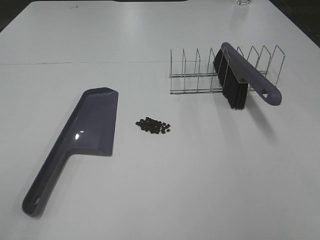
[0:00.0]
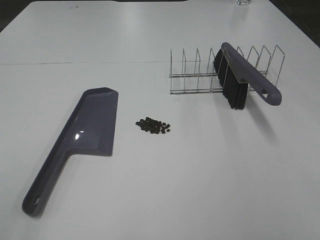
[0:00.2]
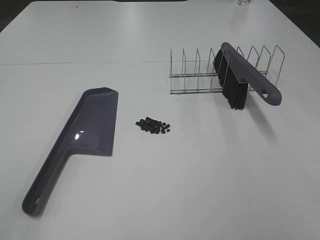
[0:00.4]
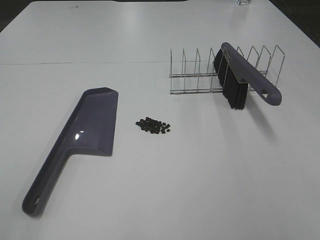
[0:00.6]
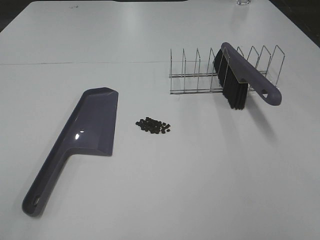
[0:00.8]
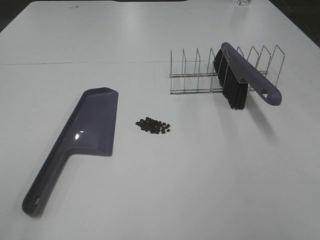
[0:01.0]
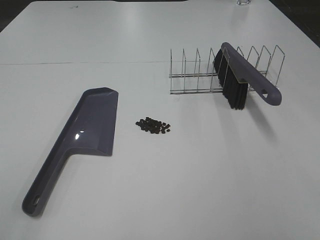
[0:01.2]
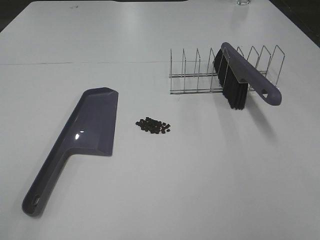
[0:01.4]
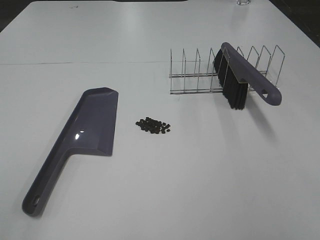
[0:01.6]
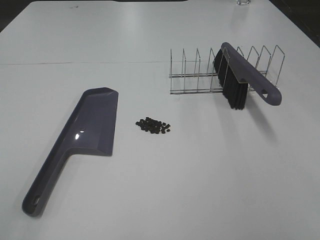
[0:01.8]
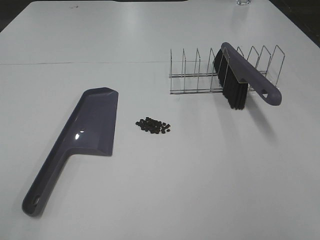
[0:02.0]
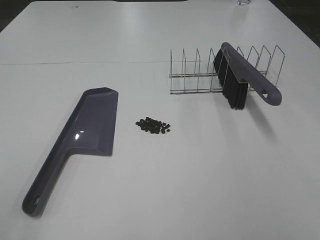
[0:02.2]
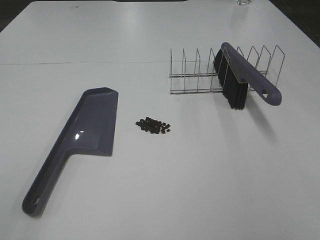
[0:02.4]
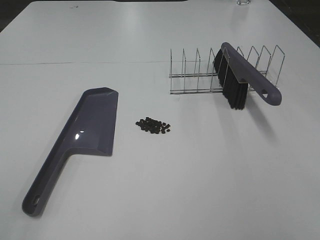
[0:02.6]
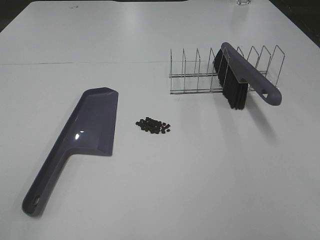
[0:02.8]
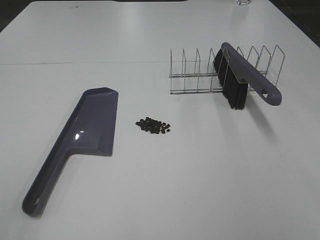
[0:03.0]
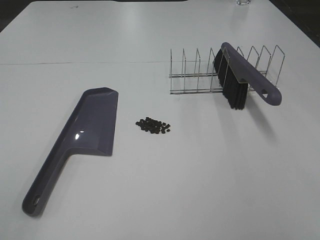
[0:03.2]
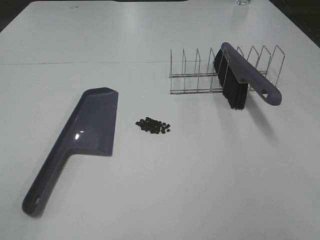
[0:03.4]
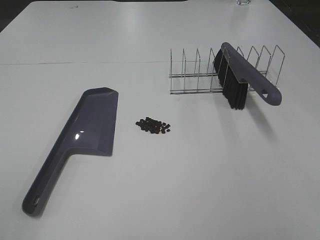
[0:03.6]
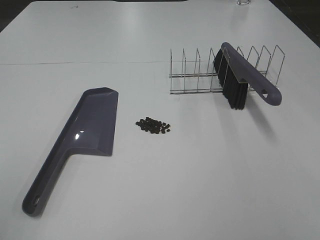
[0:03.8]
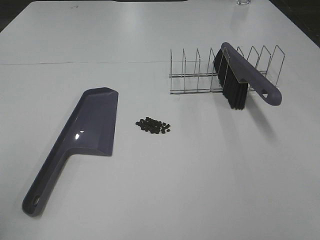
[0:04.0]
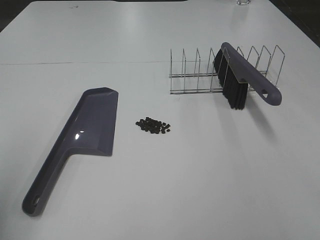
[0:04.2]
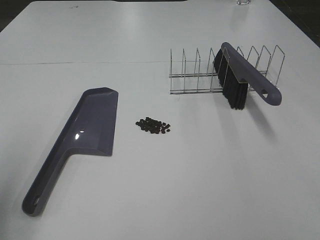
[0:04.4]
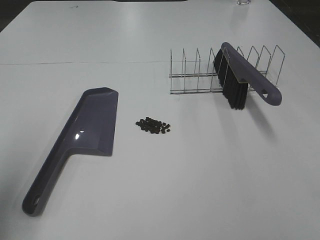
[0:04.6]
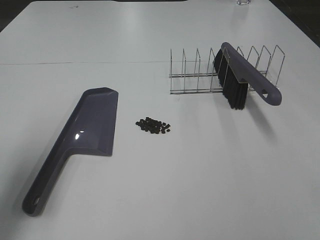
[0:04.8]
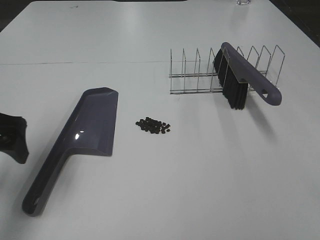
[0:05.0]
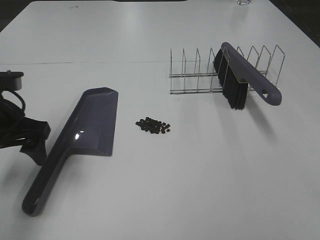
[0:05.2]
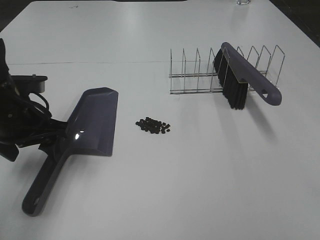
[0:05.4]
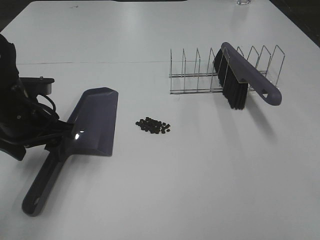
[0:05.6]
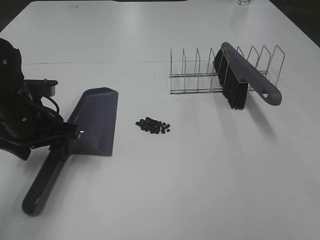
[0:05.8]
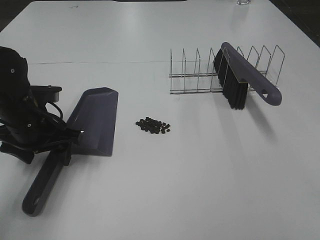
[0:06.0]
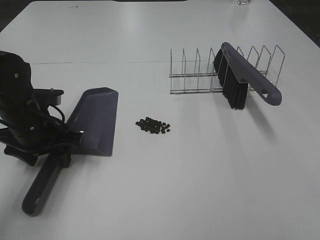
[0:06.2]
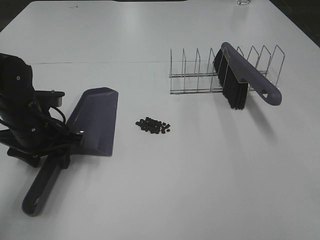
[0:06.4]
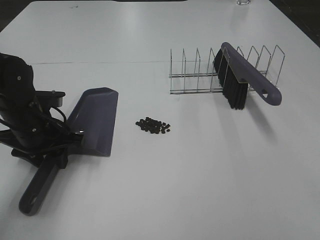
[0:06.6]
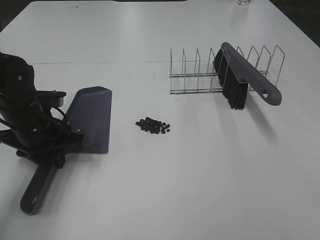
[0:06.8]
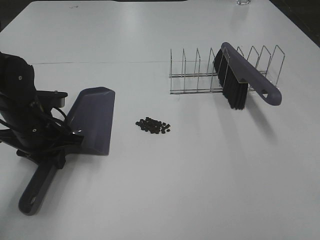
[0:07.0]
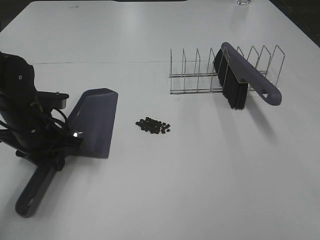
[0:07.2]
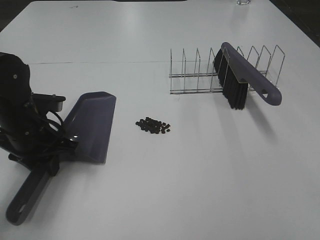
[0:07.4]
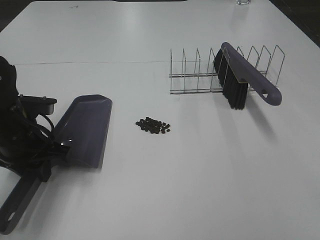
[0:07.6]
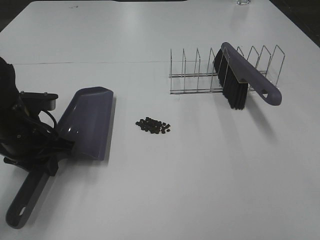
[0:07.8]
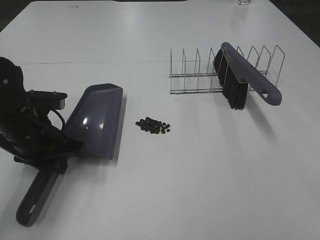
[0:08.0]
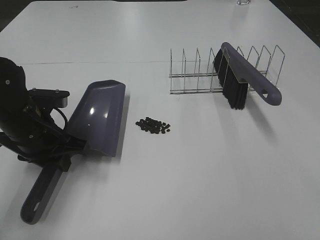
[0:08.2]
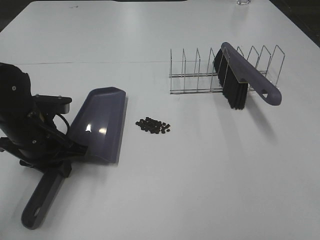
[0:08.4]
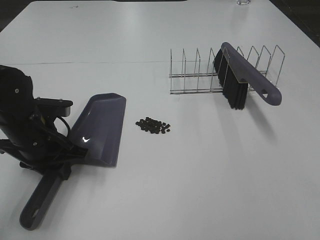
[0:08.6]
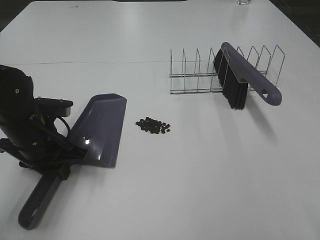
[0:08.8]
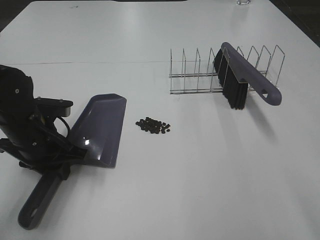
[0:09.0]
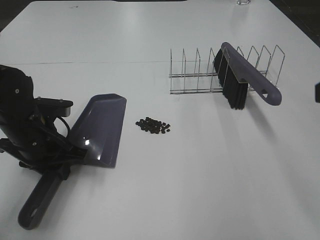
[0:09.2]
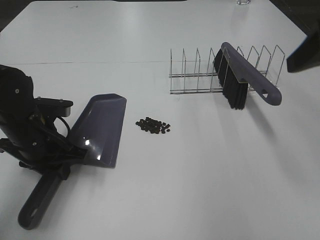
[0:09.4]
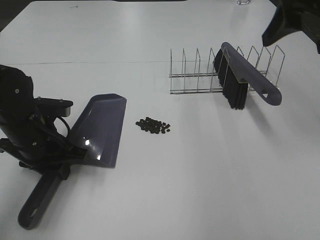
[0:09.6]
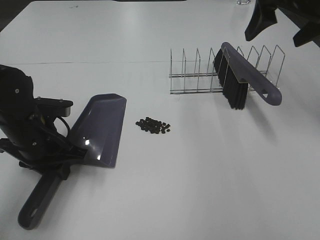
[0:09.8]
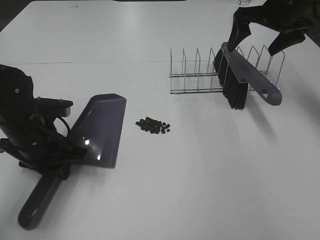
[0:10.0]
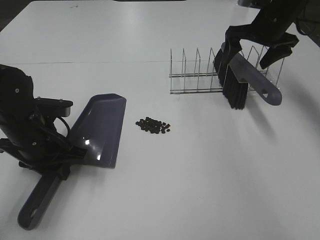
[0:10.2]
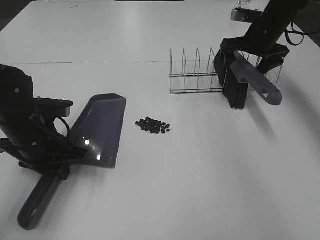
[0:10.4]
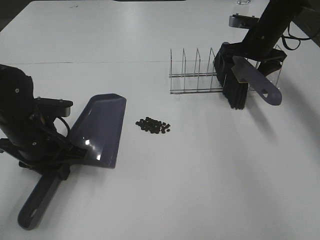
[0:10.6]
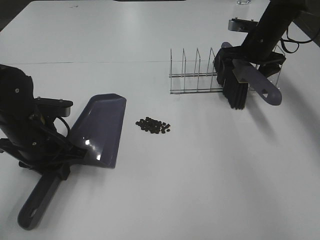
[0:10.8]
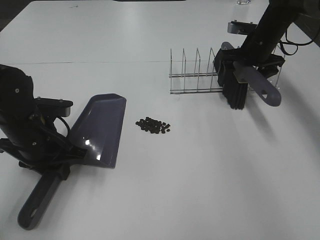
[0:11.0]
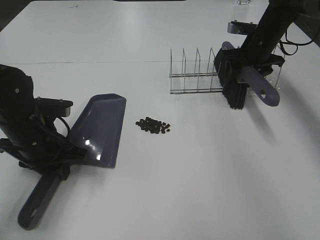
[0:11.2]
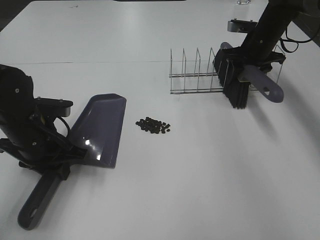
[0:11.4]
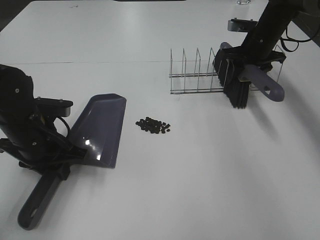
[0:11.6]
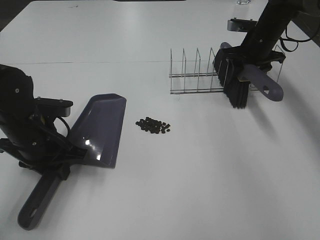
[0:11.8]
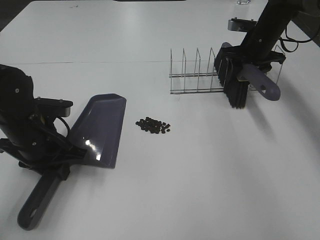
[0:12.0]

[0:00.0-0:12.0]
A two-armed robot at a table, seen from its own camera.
Task of the whole recording: Sweep Coffee Bean.
Step, 0:00.0 to 0:06.8: Left hand: grab the dustpan.
0:00.0 to 0:03.0: The two grippers keep their place.
0:03.0 to 0:04.4: The left gripper is displaced forward by roughly 15 cm.
0:04.4 to 0:06.0: The left gripper heads downward, forward and to the right, covering about 25 cm, and closes its fingers.
0:06.0 to 0:07.6: The left gripper closes its fingers.
0:07.6 to 0:09.0: The right gripper shifts roughly 10 cm forward, and opens its fingers.
0:09.0 to 0:10.4: The right gripper heads forward, covering about 40 cm.
0:10.4 to 0:12.0: The right gripper closes.

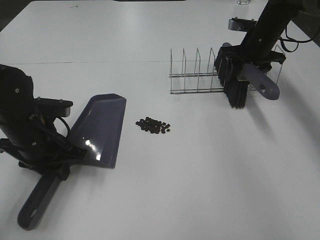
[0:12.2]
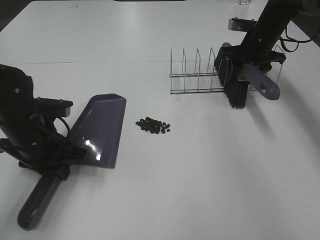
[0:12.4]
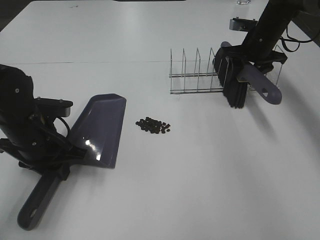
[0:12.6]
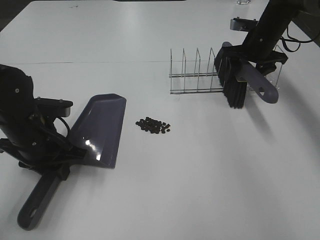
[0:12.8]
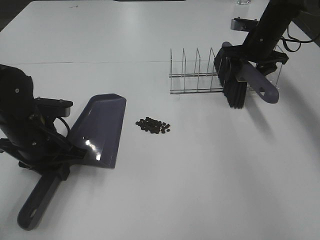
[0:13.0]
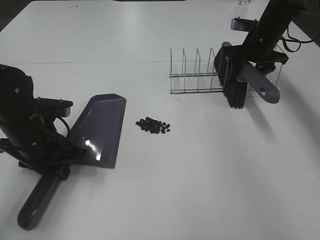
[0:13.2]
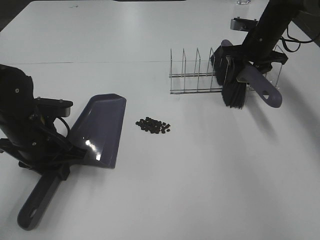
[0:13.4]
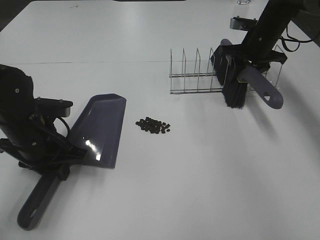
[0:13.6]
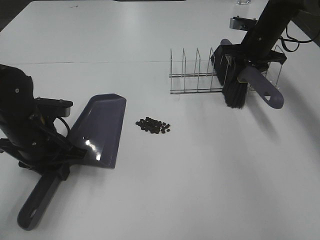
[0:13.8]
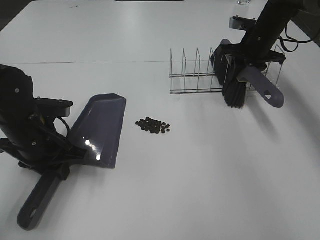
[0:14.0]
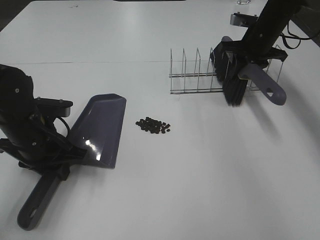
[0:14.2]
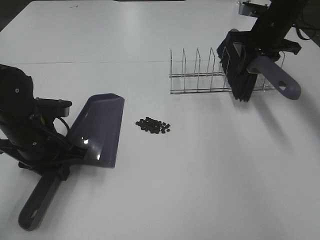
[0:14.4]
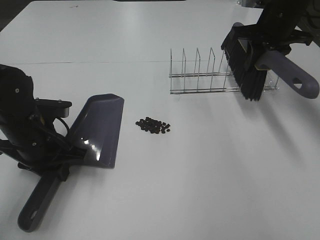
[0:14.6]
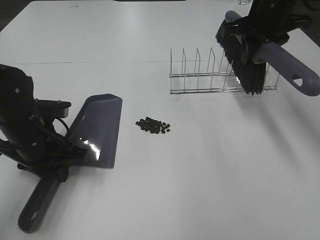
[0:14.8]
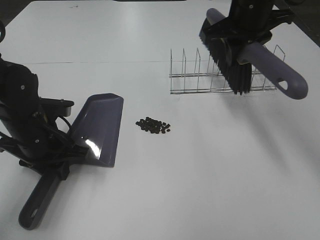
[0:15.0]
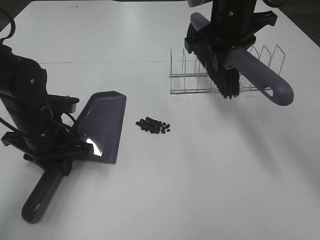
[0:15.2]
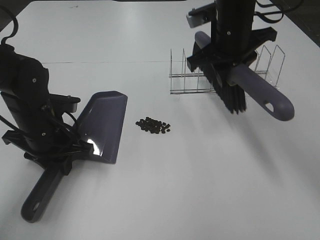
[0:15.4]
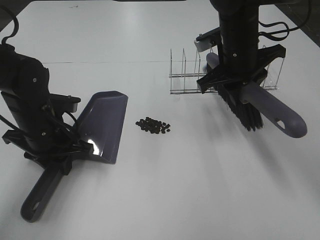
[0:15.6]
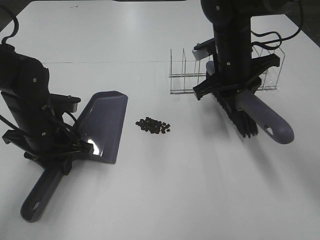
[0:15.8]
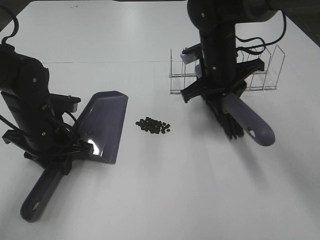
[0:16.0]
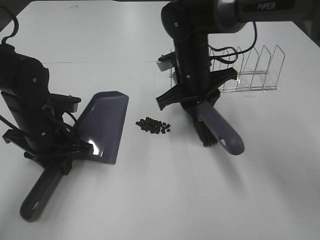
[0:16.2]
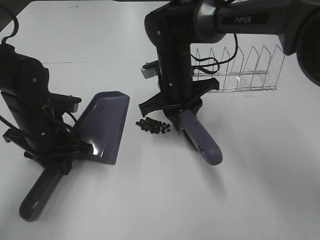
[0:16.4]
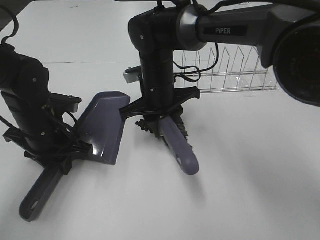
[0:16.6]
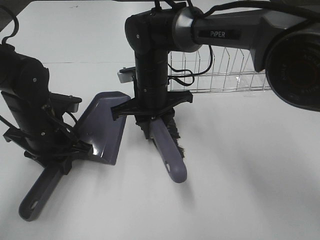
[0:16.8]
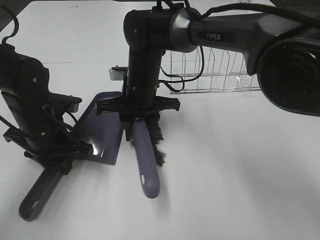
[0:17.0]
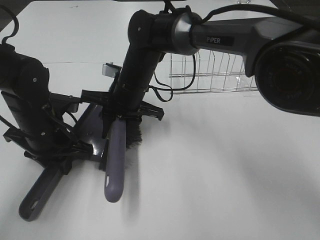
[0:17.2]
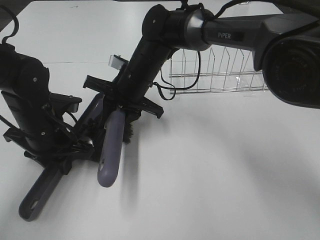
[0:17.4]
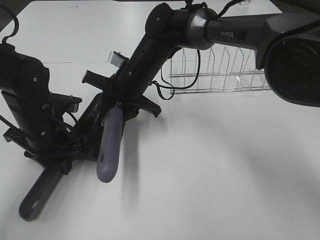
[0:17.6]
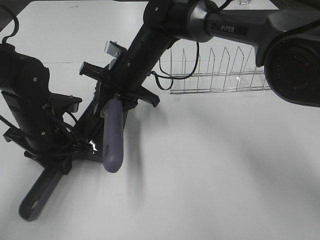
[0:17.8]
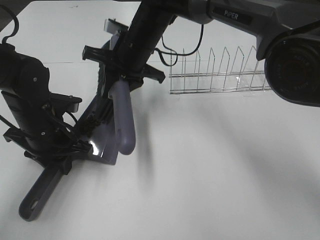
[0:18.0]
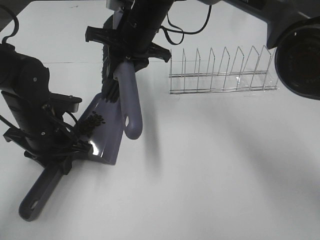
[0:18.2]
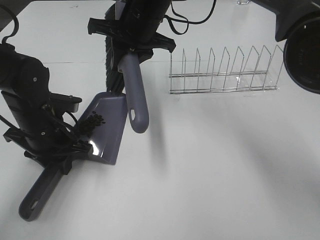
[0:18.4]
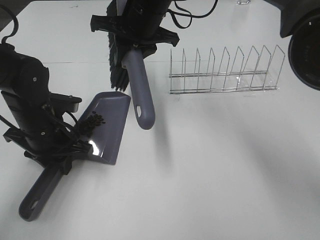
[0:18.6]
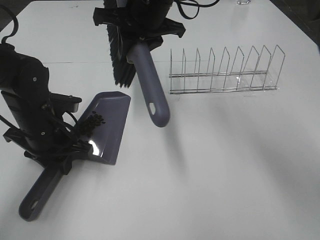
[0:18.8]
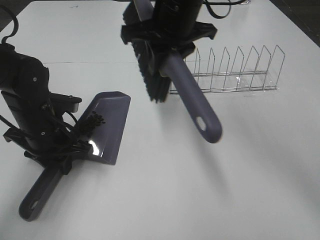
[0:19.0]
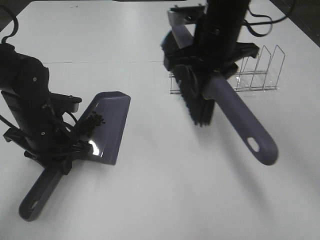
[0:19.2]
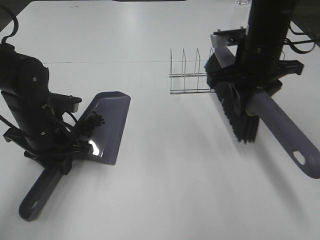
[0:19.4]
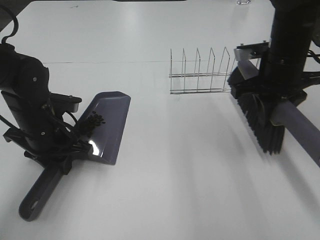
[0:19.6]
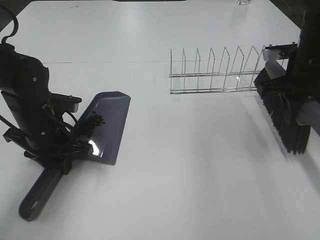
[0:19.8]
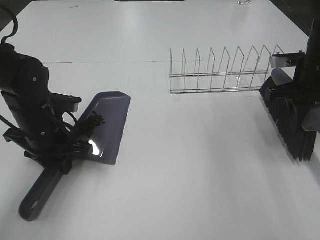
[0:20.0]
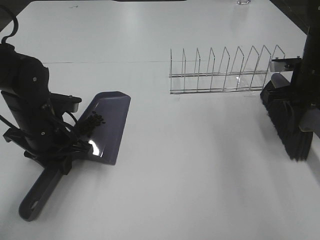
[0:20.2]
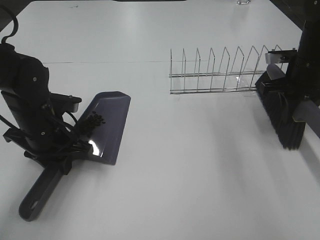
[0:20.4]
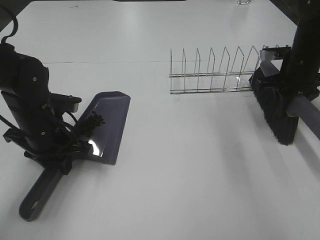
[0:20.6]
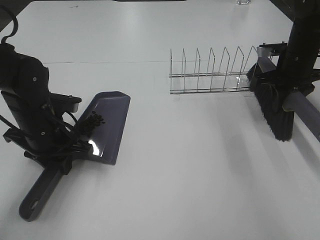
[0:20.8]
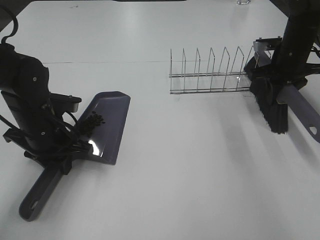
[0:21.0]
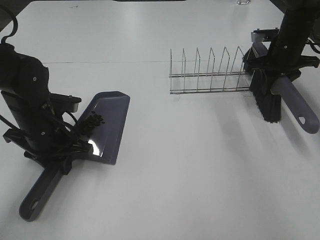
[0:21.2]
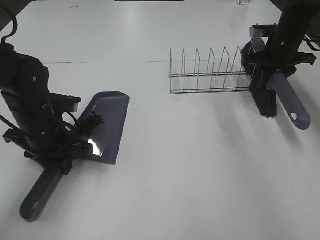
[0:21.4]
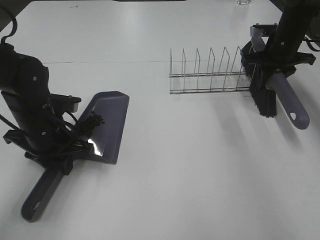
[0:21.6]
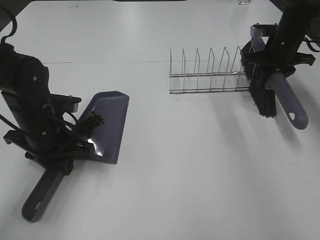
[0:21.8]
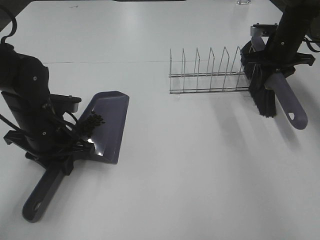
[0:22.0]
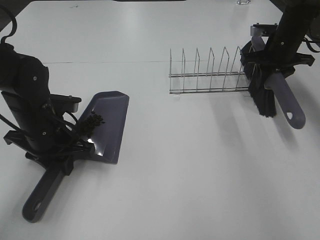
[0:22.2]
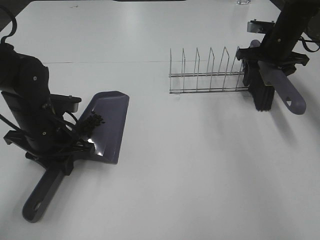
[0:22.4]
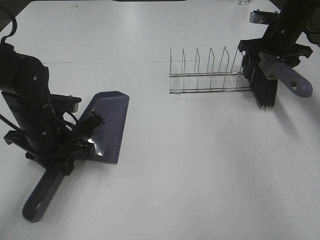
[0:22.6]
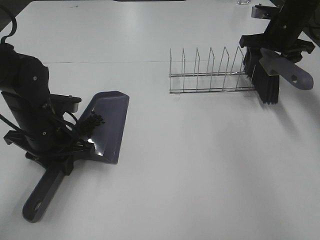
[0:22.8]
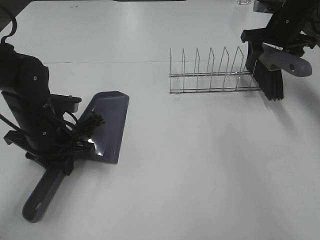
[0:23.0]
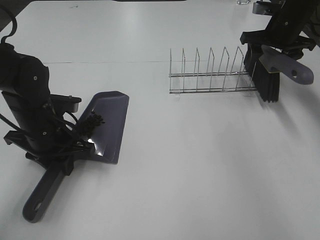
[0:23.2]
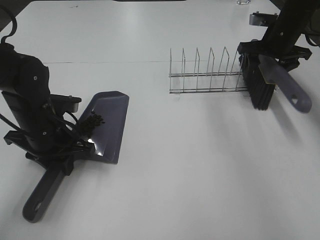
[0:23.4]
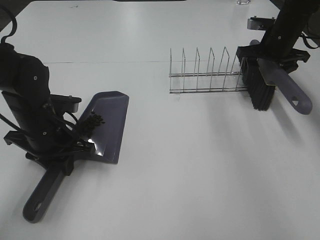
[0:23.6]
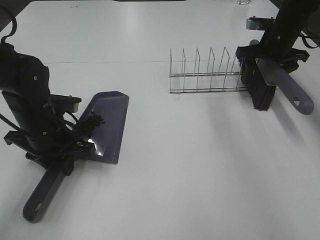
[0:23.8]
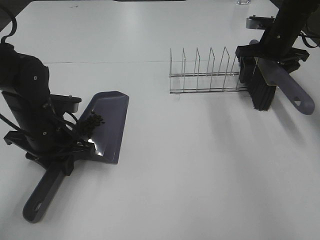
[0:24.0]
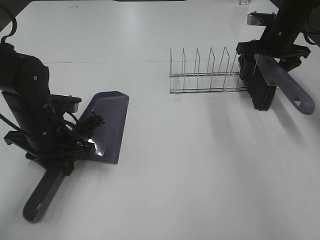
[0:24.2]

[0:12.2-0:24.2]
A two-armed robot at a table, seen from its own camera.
Task of the whole recording: Sweep Coffee Bean.
Step, 0:13.8 to 0:17.8: Right hand:sweep the coffee beans into the dustpan.
0:12.2 to 0:13.8: Neither gripper changes place.
0:13.8 to 0:15.2: The right gripper shifts roughly 20 cm to the left, backward and upward.
0:15.2 to 0:16.6: The right gripper shifts about 20 cm downward and to the left.
0:16.6 to 0:18.2: The right gripper shifts some 10 cm upward.
0:18.2 to 0:19.8: The right gripper shifts about 30 cm to the right.
0:19.8 to 0:21.2: The right gripper travels forward by approximately 15 cm.
0:21.2 to 0:22.6: The right gripper opens up.
0:22.6 to 0:24.2: The grippers move only a little.
